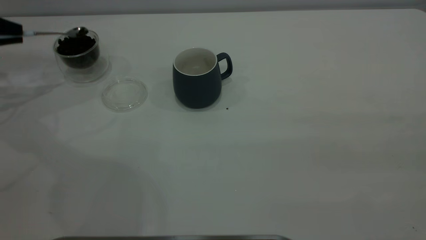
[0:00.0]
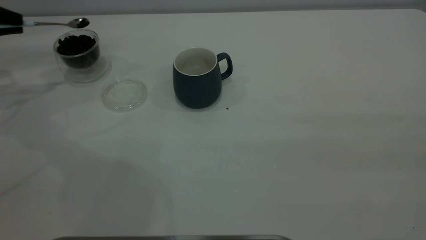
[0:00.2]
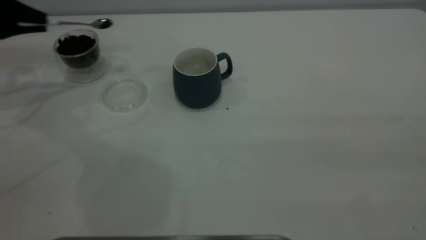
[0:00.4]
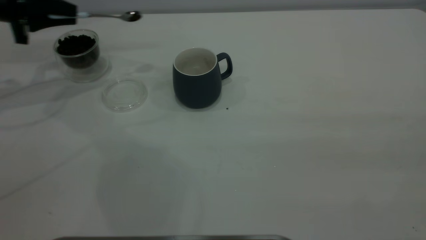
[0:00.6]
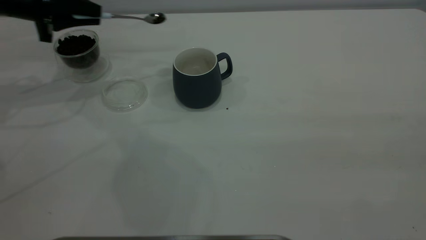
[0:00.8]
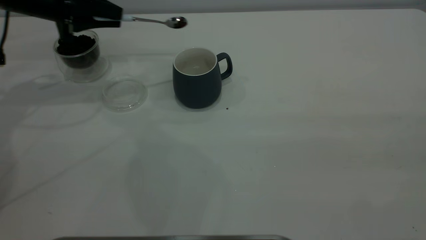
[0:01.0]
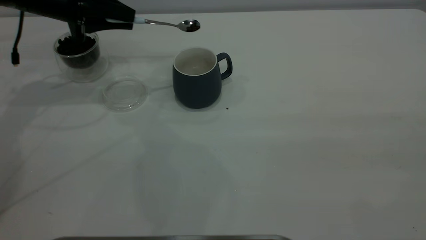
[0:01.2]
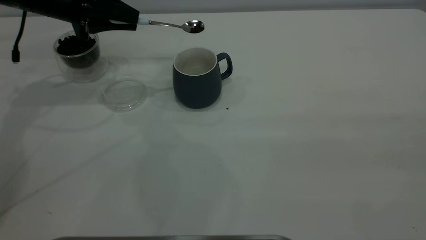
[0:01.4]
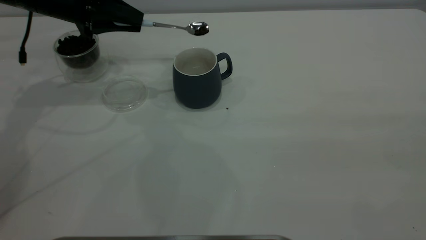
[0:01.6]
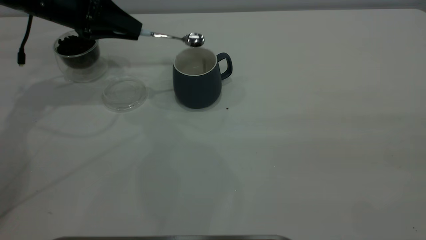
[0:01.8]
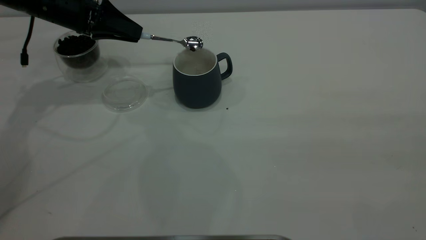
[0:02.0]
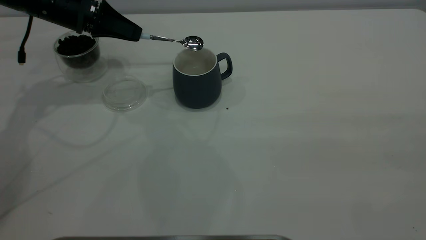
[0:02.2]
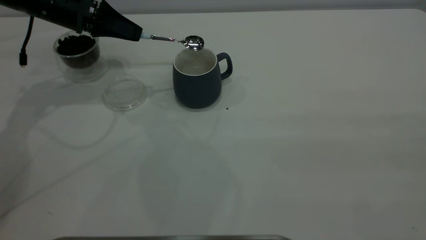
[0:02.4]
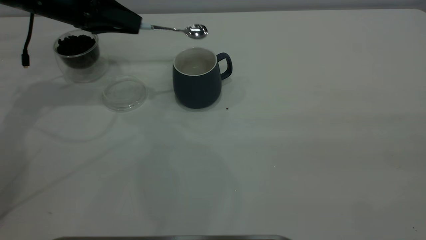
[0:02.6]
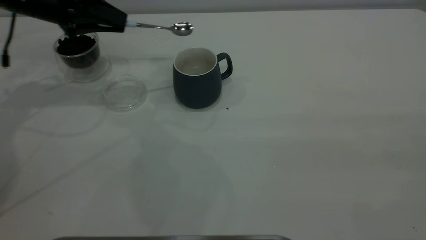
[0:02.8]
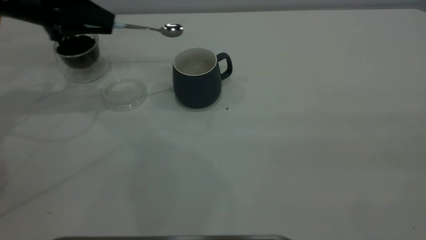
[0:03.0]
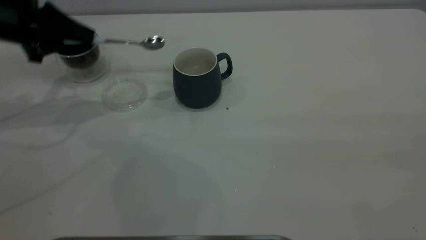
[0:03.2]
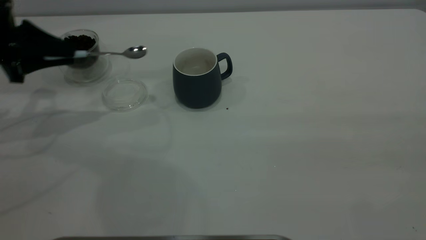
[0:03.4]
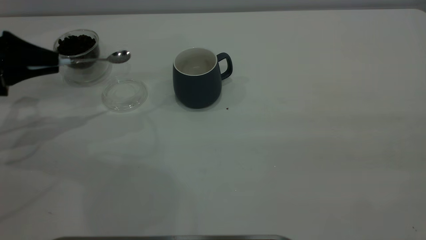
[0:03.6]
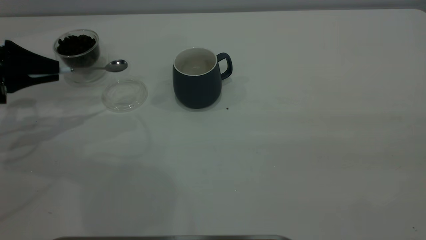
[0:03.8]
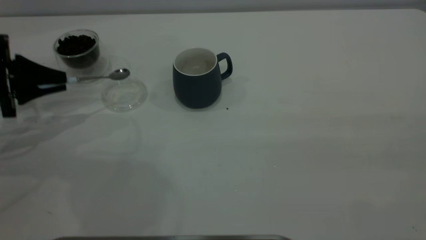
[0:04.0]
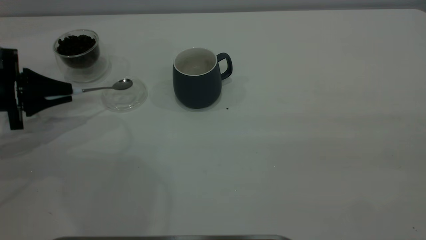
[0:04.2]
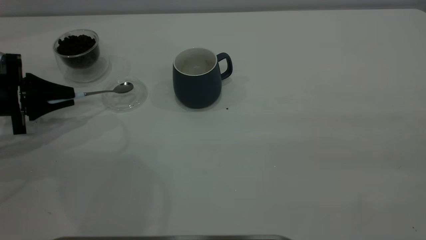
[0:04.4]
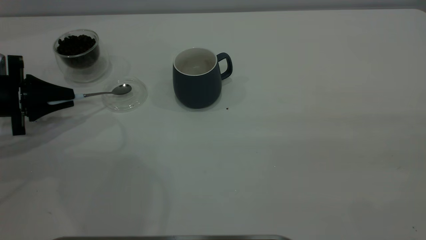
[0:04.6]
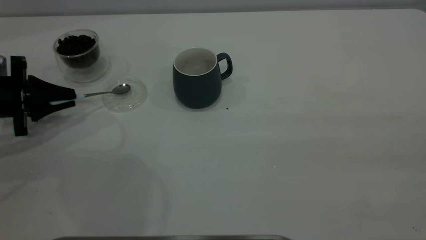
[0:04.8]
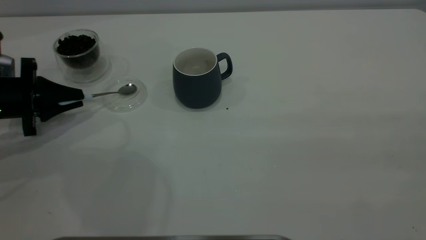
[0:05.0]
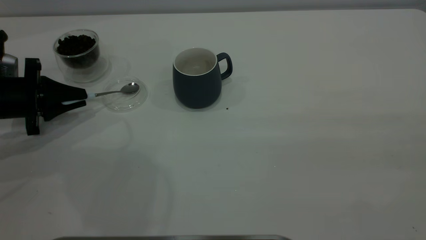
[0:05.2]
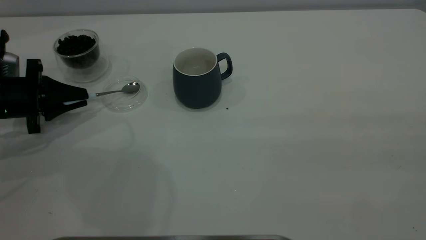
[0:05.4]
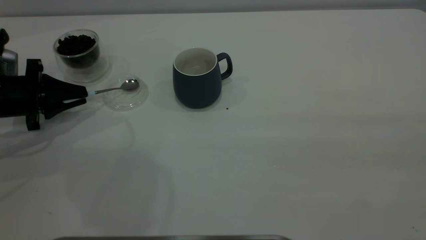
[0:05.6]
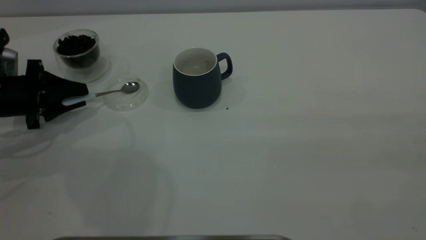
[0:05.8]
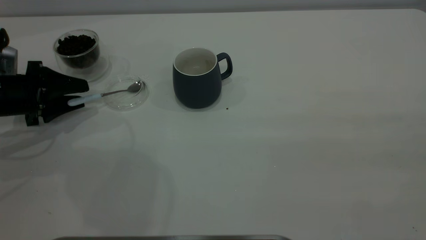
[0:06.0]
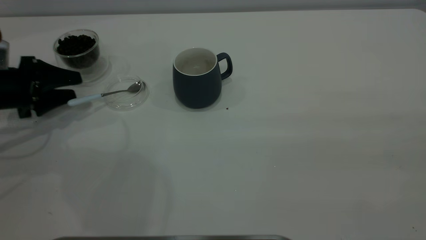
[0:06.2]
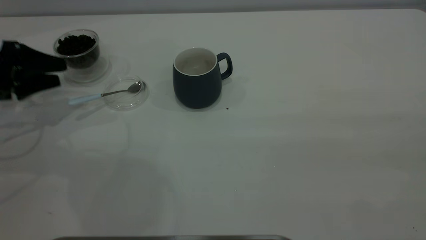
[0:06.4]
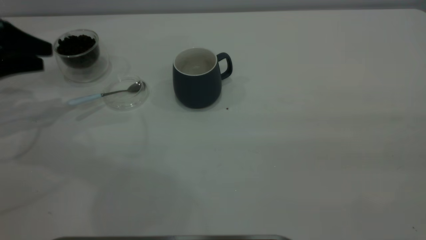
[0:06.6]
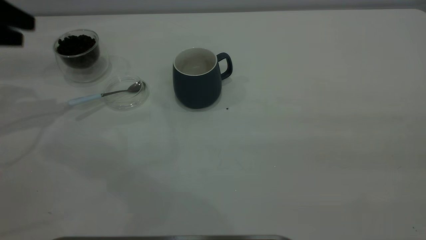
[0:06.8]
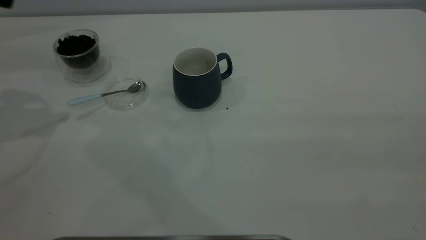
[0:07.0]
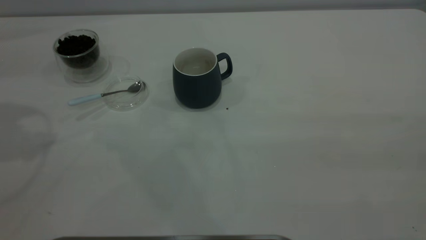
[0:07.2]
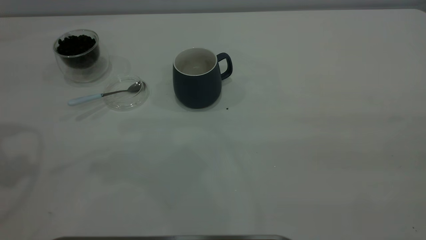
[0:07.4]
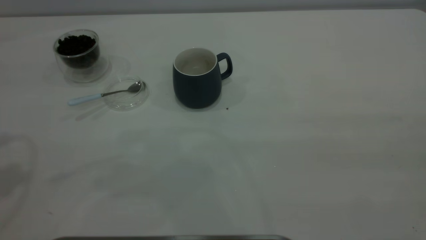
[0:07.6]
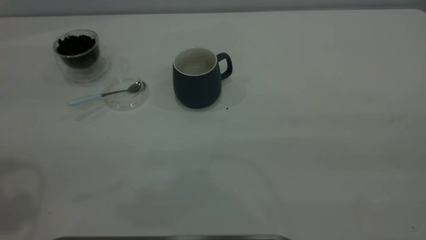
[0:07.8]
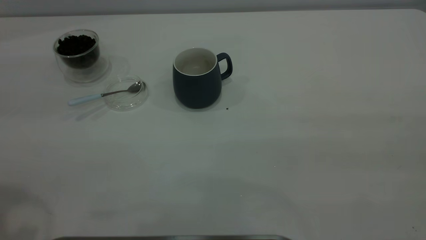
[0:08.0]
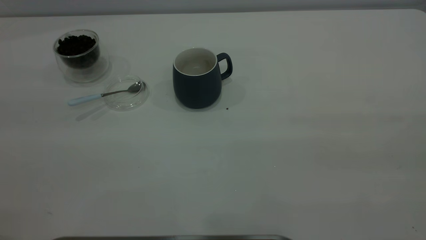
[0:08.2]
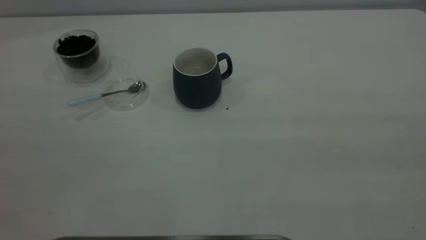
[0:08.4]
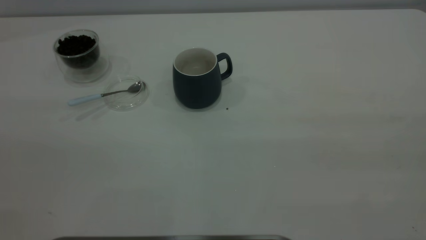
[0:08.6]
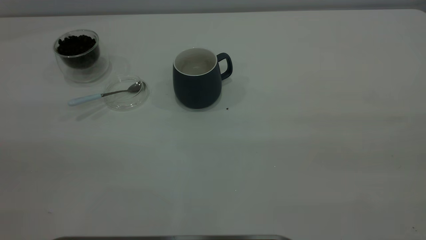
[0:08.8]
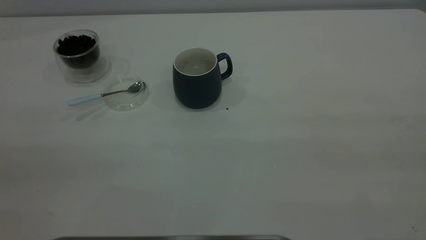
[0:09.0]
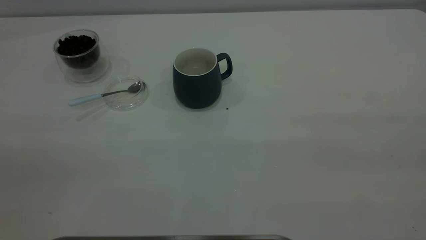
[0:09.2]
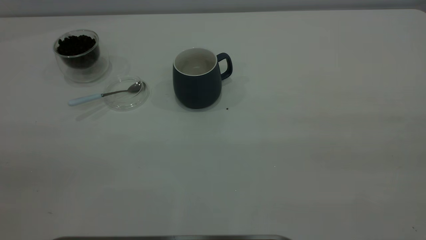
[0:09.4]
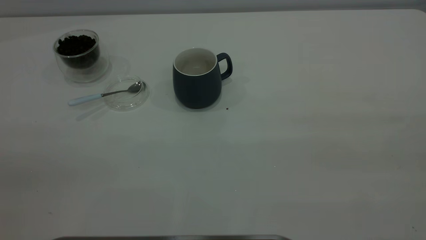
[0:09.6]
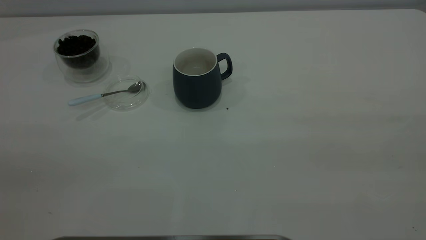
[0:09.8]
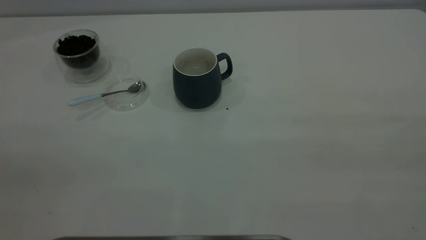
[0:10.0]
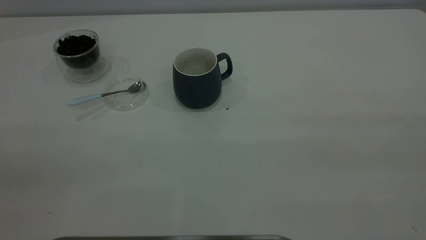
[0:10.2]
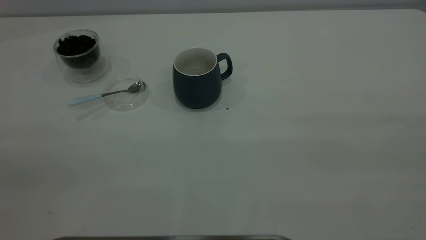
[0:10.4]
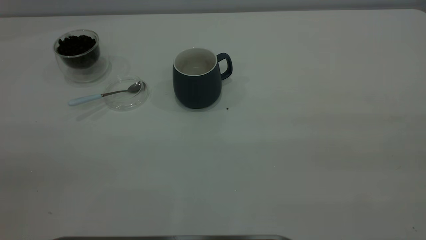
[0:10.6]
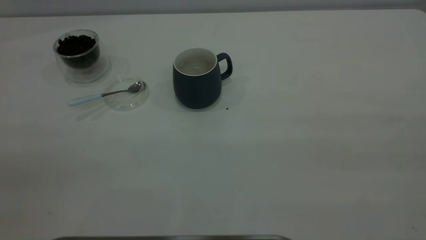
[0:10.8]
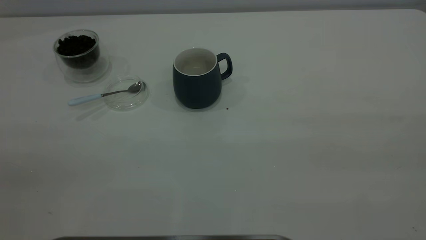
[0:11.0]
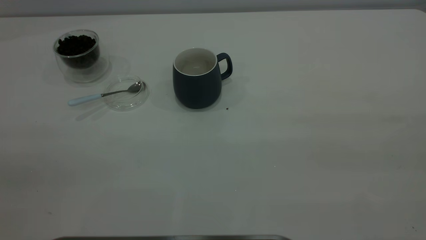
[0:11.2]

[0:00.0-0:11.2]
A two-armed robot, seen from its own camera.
Task of the whole recording: the right gripper place the grey cup in the center of the table, the left gripper take the blue spoon from the cup lid and scoop out the coffee beans from the coffee cup and put them into the grey cup, the left gripper put the spoon back into the cup lid.
Step, 0:00.0 to 0:02.6: Scoop a spoonful of beans into the cup.
Step, 0:02.8 to 0:06.6: Place the spoon back in its original place.
0:00.0 to 0:01.6: The left gripper moves to the right, roughly 20 cm.
0:01.6 to 0:03.2: The left gripper goes about 10 cm to the left and backward.
0:03.2 to 0:04.8: The left gripper travels downward and backward by approximately 10 cm.
0:04.8 to 0:06.4: The left gripper shifts by roughly 5 cm, and opens.
0:06.4 to 0:08.0: The left gripper goes approximately 35 cm upward and backward.
0:09.6 to 0:11.2: Both grippers stay about where they are.
